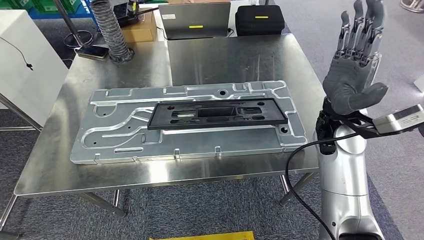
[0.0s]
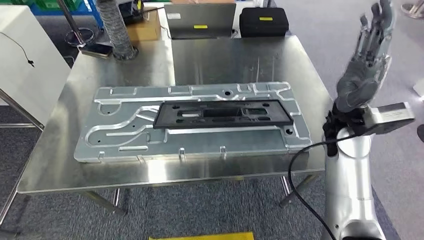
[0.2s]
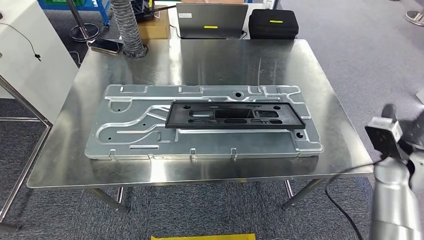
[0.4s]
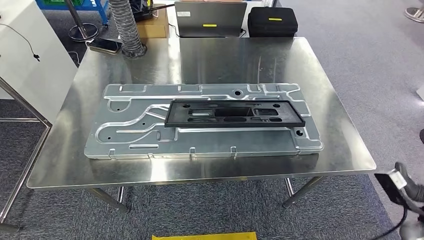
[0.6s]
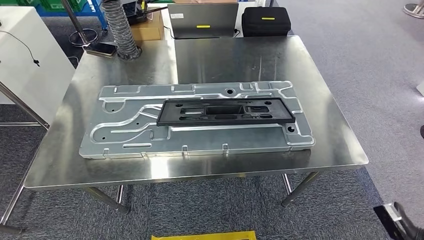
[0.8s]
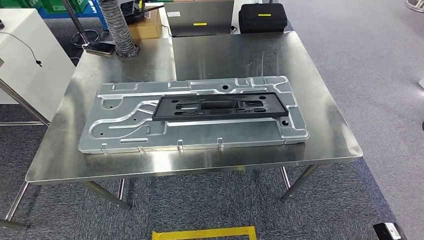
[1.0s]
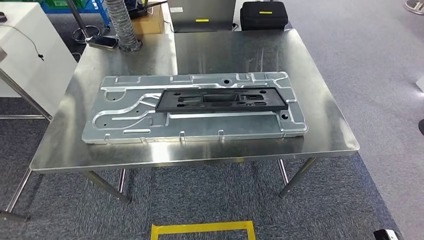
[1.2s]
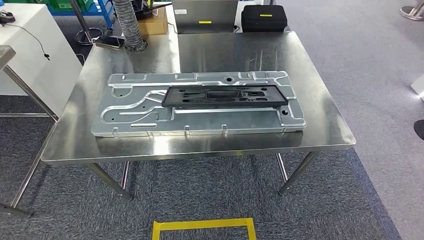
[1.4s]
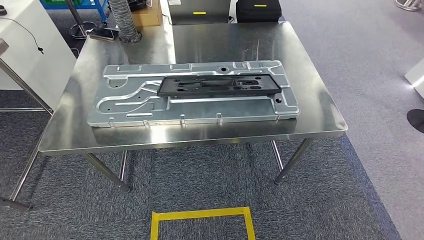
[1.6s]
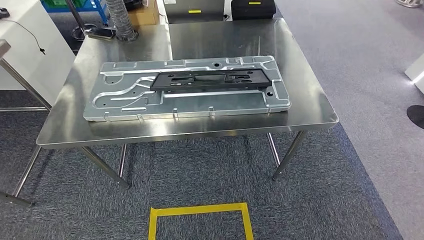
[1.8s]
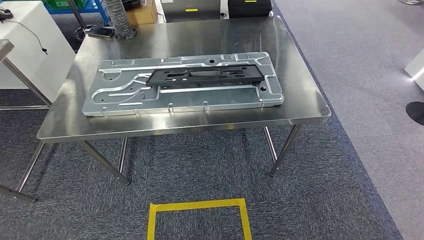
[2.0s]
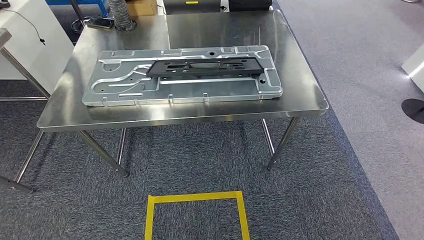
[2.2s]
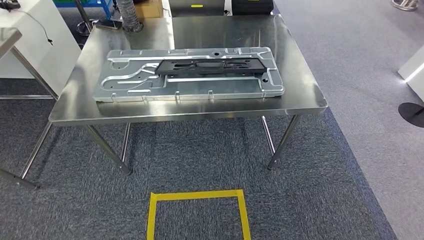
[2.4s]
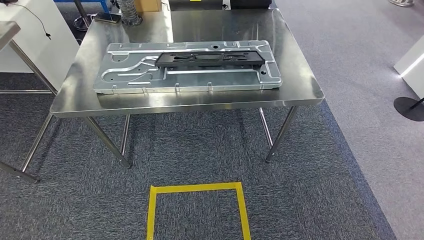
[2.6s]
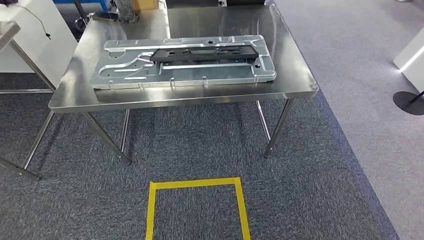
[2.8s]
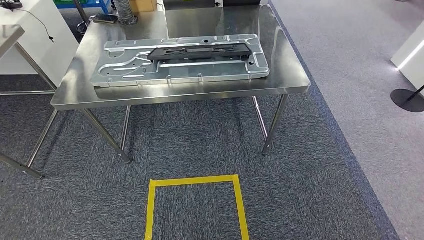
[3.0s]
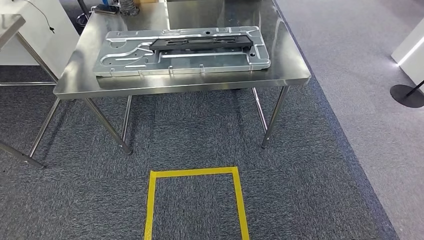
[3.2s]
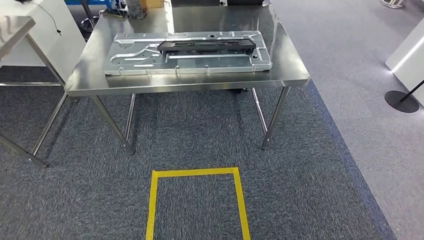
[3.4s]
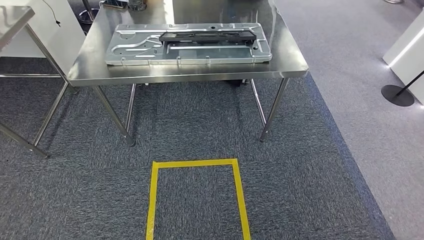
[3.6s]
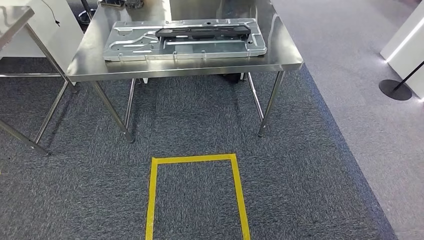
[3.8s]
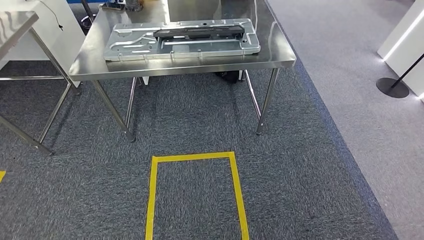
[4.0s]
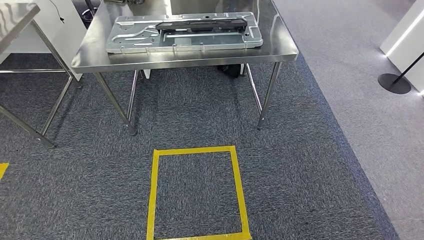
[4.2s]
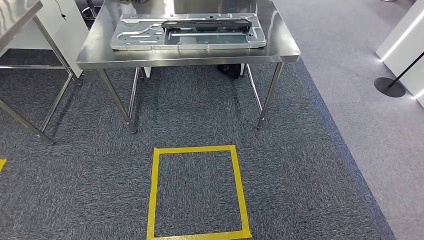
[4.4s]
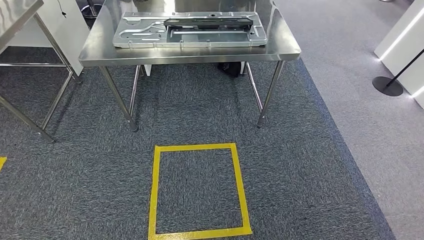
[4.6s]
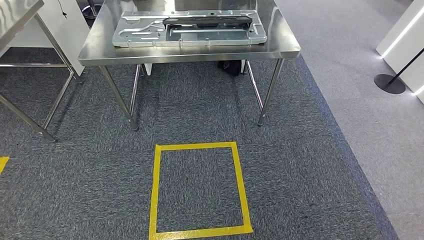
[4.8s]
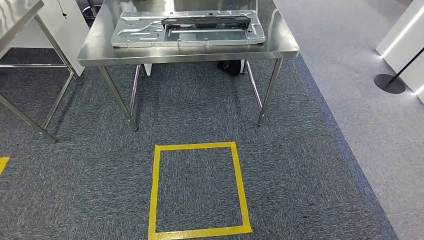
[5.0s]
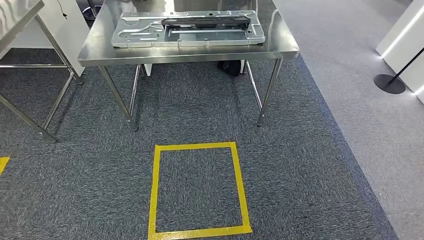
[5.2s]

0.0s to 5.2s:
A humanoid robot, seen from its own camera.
Step, 0.6s to 5.0s: Move to the initial position of the shelf.
